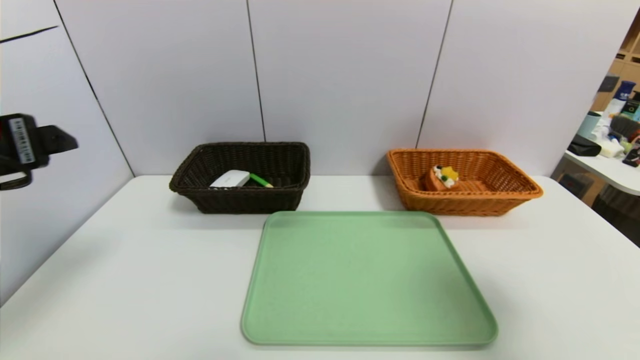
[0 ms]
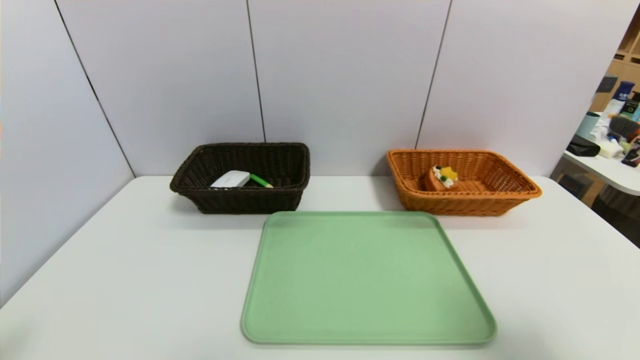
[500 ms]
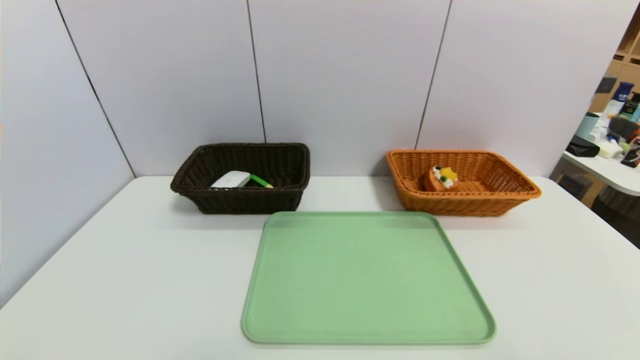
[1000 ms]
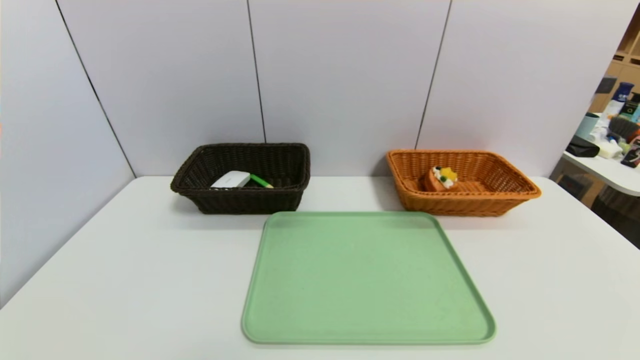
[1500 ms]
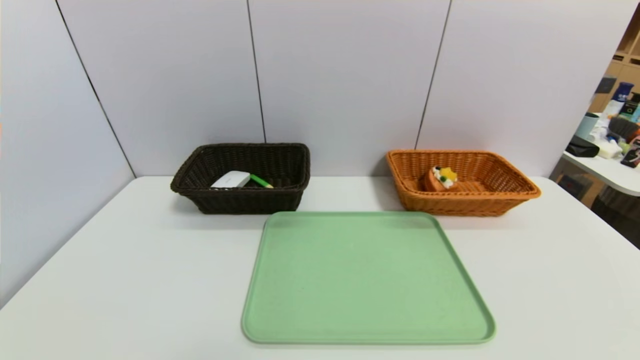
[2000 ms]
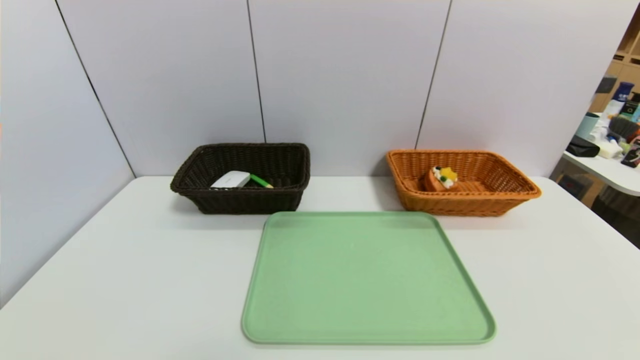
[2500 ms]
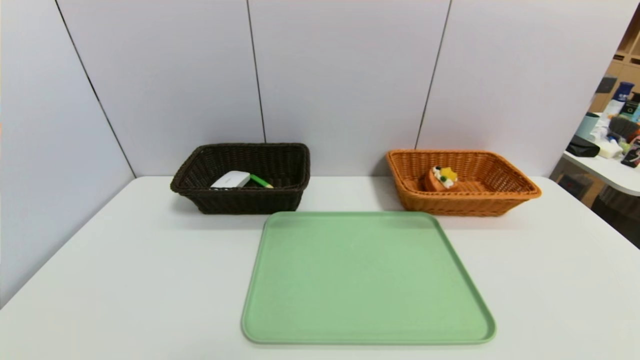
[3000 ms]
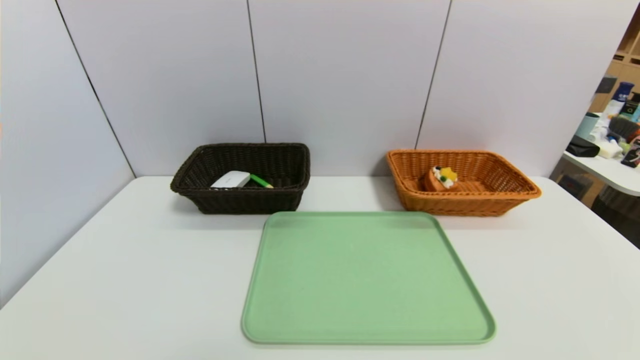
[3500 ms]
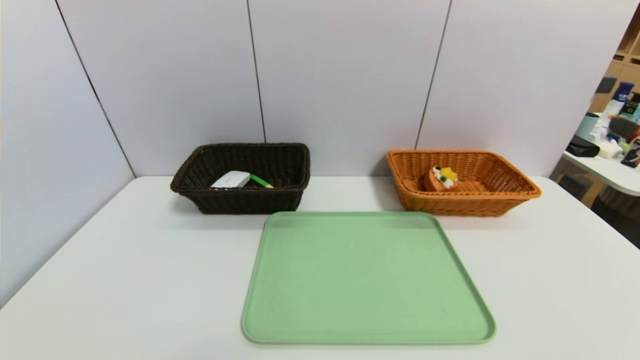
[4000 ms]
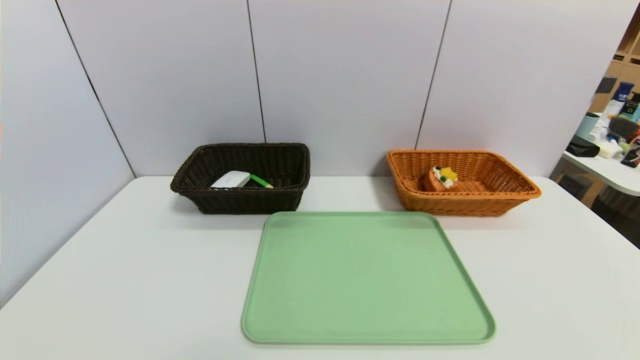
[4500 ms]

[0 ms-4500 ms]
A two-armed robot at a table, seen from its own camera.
Task of the whole recording: place the food in the right basket with the right gripper, and place the non food items in the left basket with the left gripper.
0 ms to 2000 ms: Both grippers move backward and downward, roughly 25 cm.
